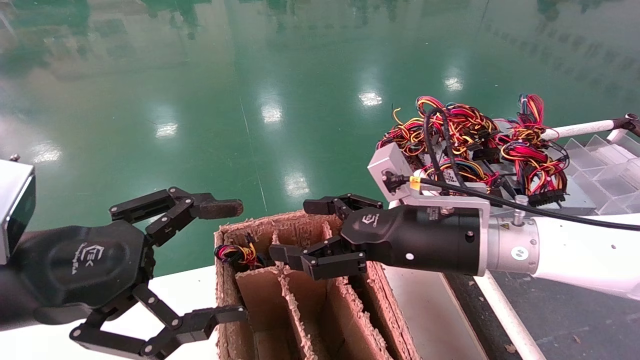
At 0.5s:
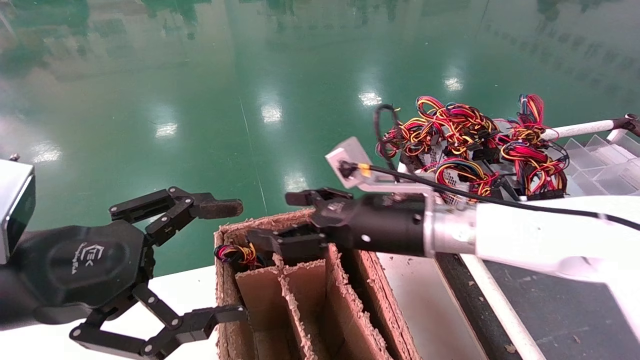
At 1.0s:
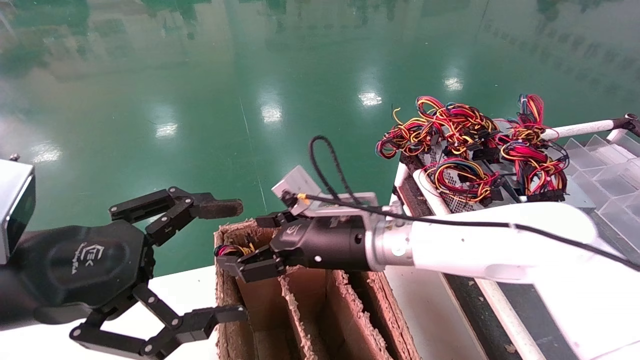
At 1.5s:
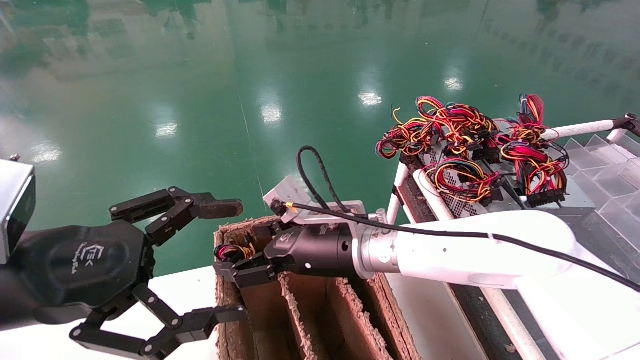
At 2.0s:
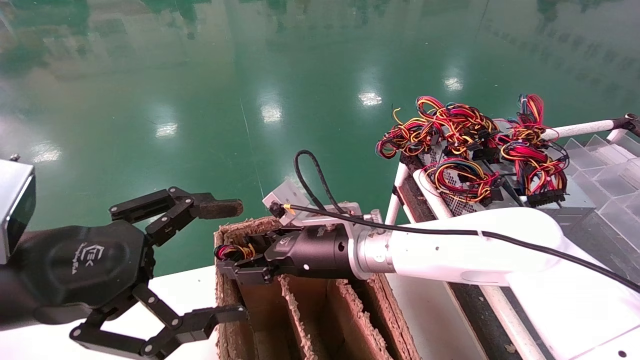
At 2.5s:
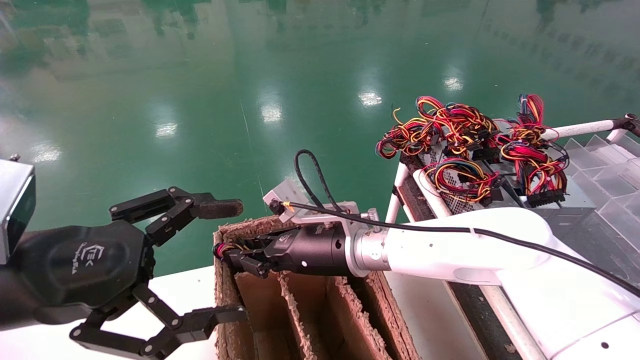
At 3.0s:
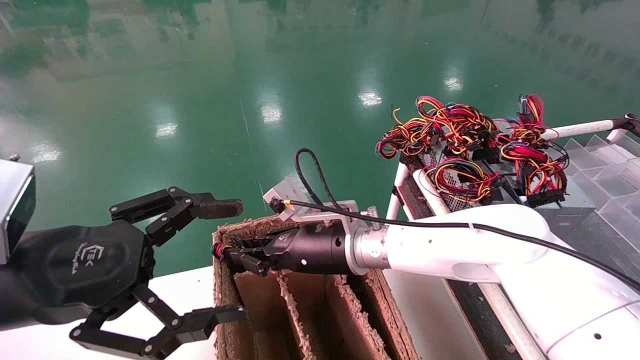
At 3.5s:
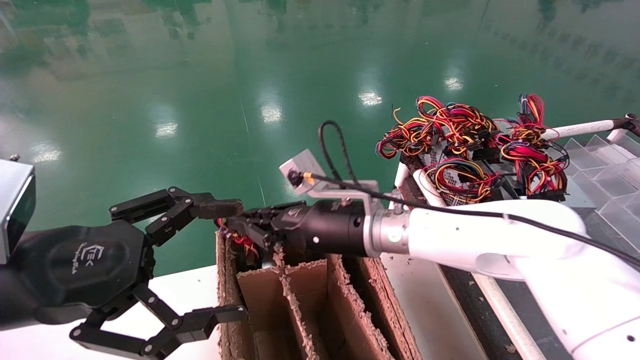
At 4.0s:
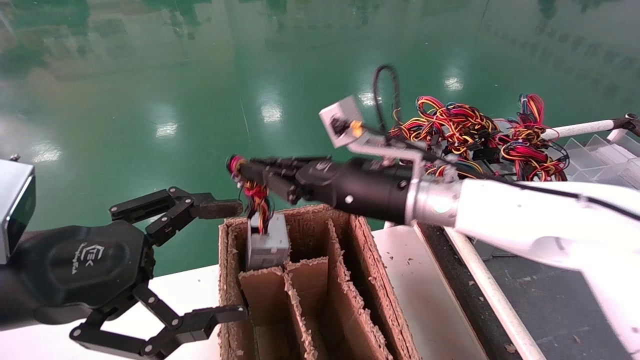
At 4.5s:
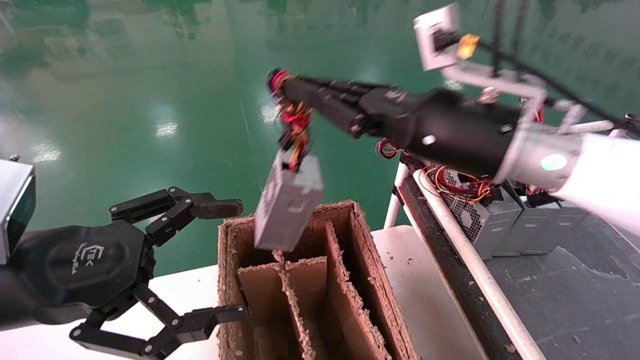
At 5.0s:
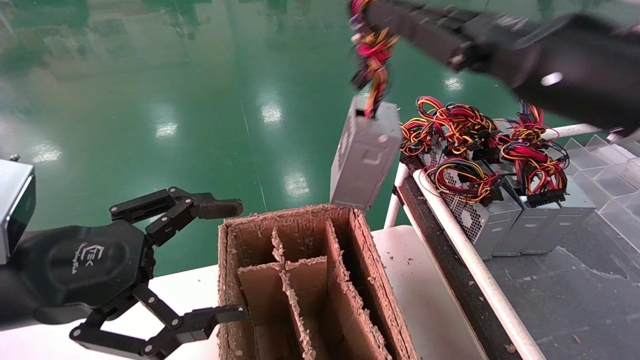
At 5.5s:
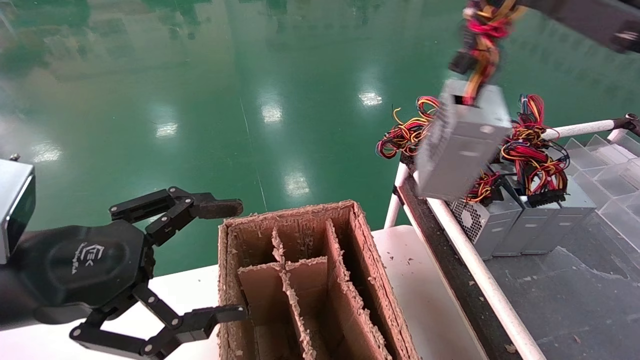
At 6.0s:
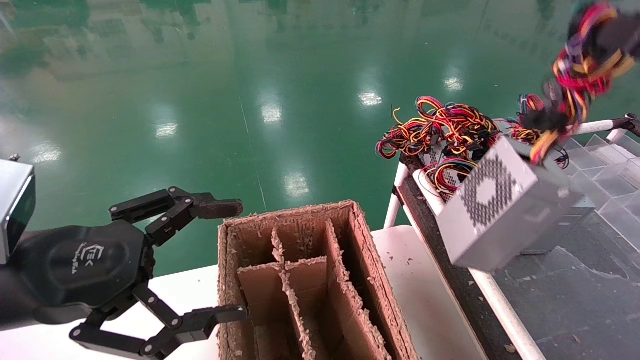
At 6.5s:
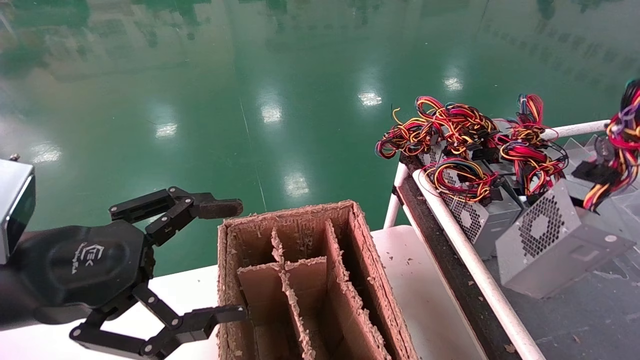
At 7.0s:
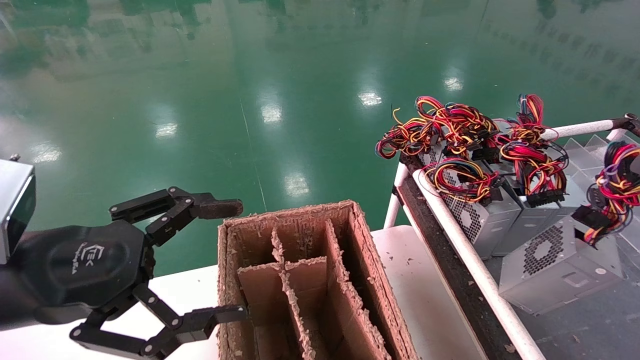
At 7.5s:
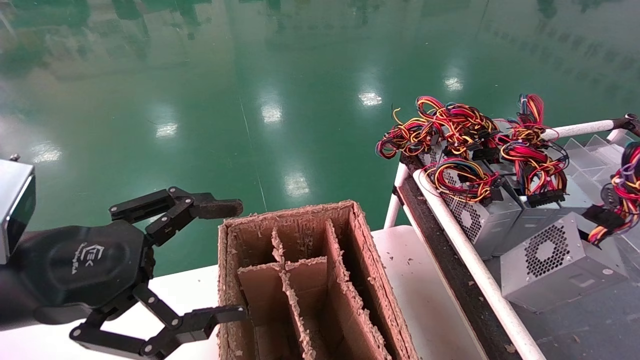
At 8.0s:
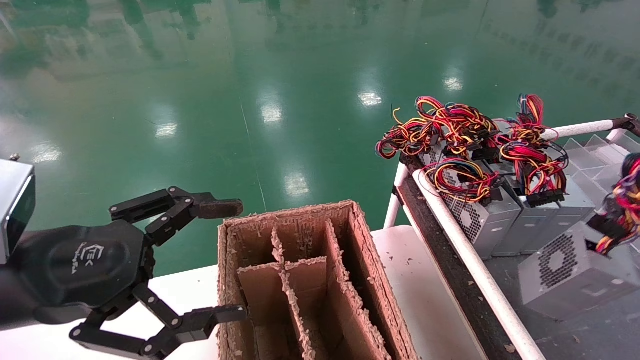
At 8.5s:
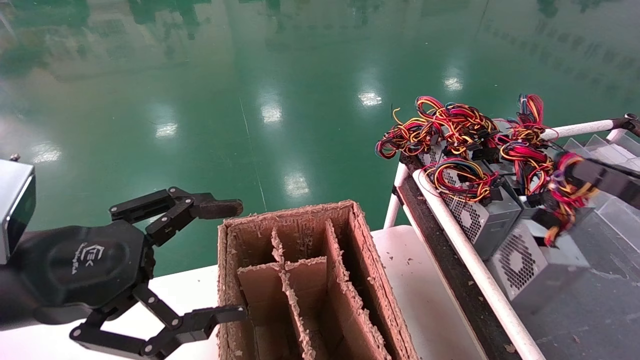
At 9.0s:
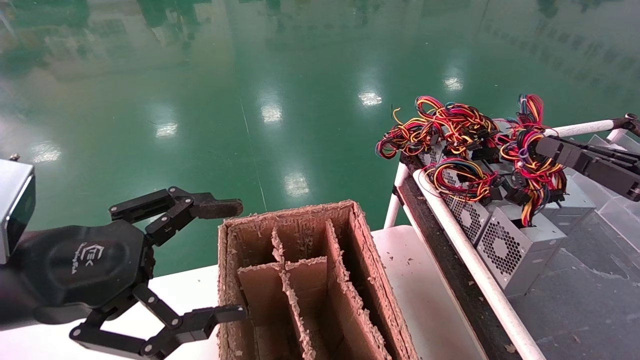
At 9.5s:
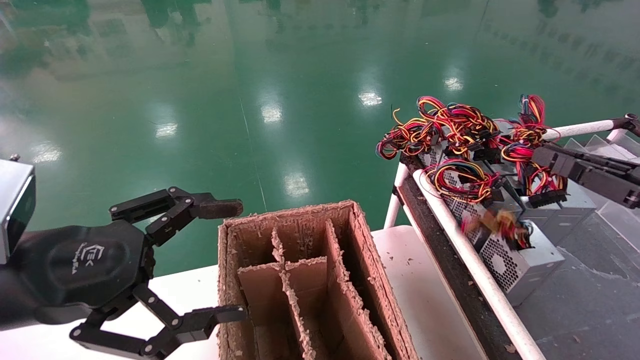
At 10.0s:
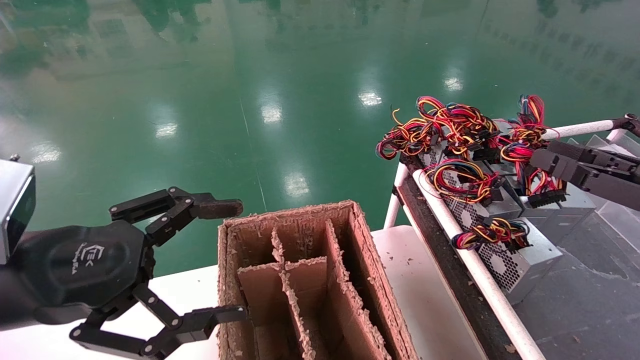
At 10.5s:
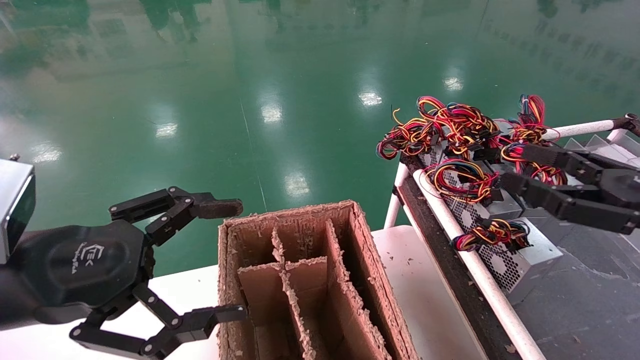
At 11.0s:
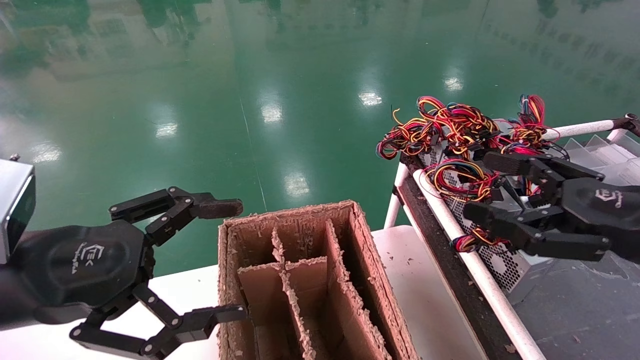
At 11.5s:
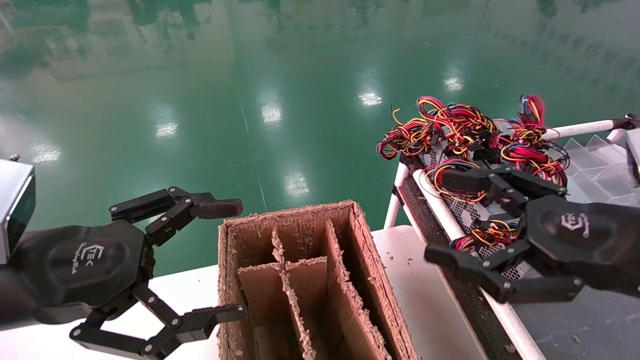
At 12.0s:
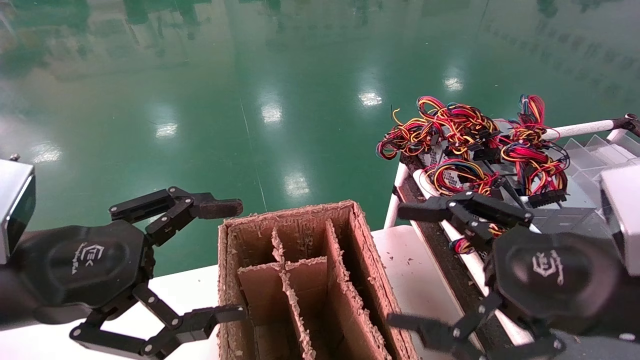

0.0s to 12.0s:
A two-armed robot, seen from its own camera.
Step, 0.0s to 3.0s: Grab and lift the power supply from the large box.
Step, 3.5s to 9.5s: Place the power supply on the operating table.
0.0s to 2.0s: The right gripper heads to the left, forward and downward, covering roughly 15 cm.
2.0s to 4.0s: The right gripper is displaced upward and to the right by roughly 10 cm, and closes up.
4.0s to 6.0s: The right gripper moves to the right and backward, about 35 cm.
6.0s to 8.0s: The right gripper is displaced downward and to the right by approximately 15 cm.
8.0s to 10.0s: The right gripper goes roughly 10 cm forward and to the left.
10.0s to 12.0s: The right gripper shifts roughly 15 cm to the left, and opens up.

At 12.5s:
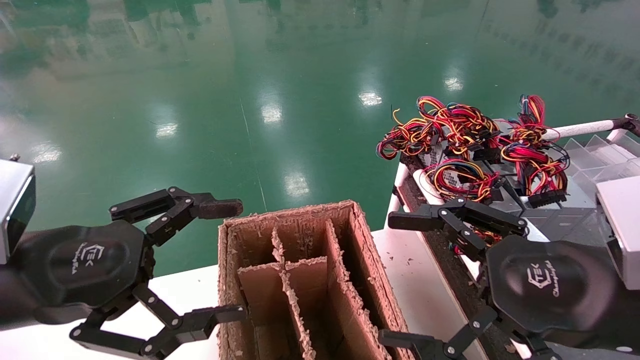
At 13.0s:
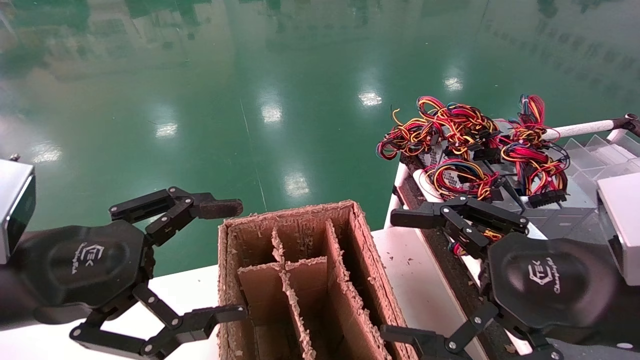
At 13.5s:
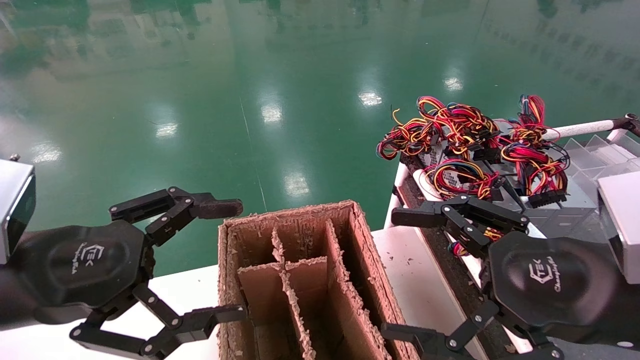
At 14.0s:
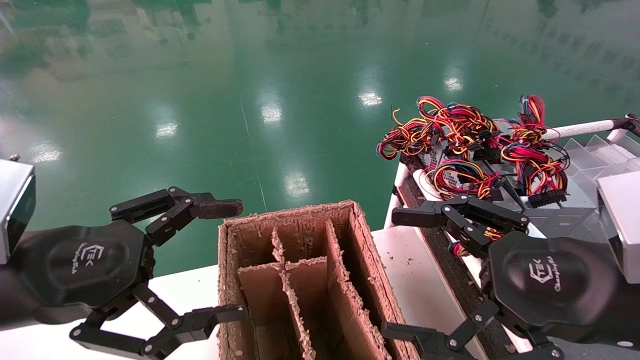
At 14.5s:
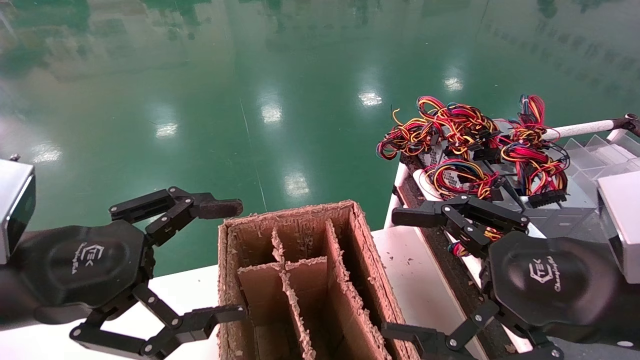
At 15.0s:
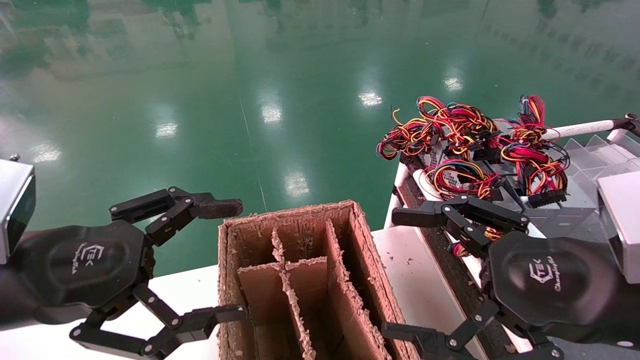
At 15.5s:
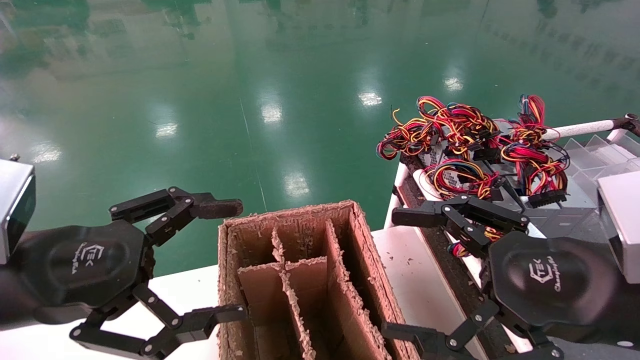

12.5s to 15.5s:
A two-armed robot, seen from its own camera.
12.5s to 15.5s: Both grippers stay about where they are.
